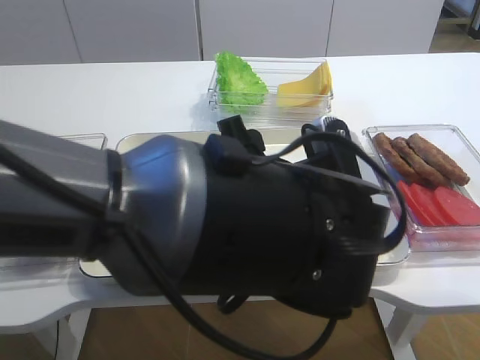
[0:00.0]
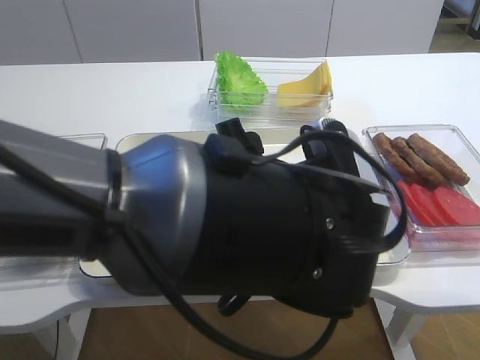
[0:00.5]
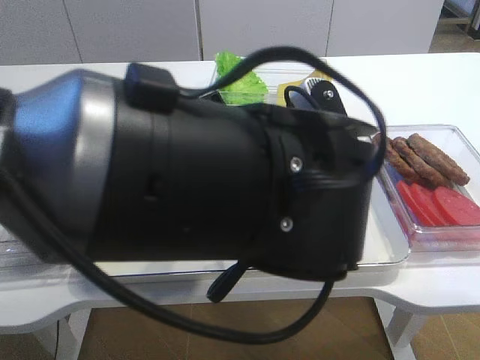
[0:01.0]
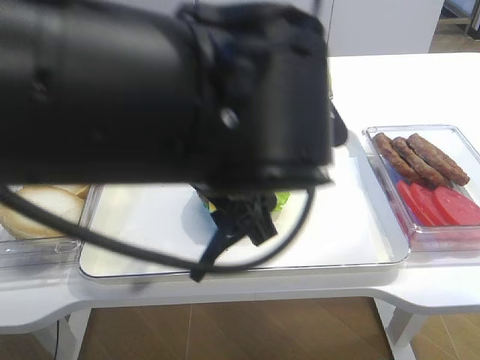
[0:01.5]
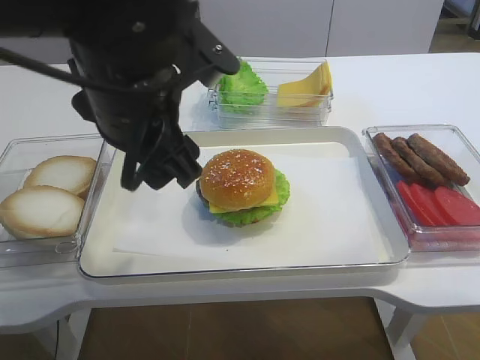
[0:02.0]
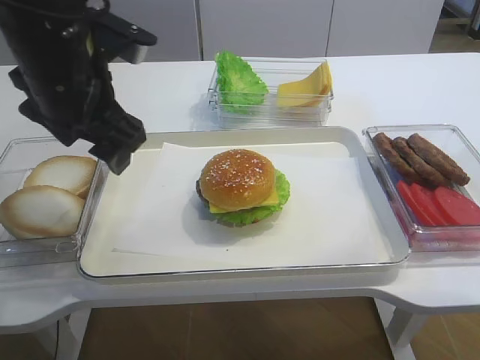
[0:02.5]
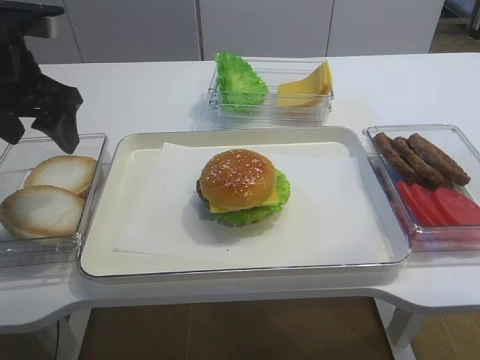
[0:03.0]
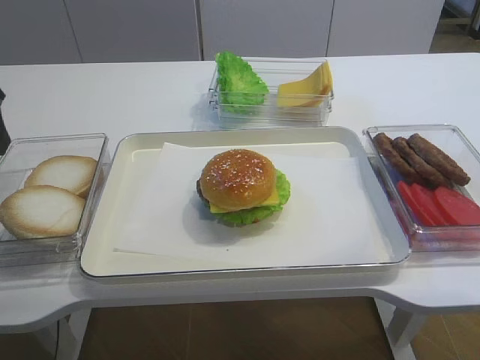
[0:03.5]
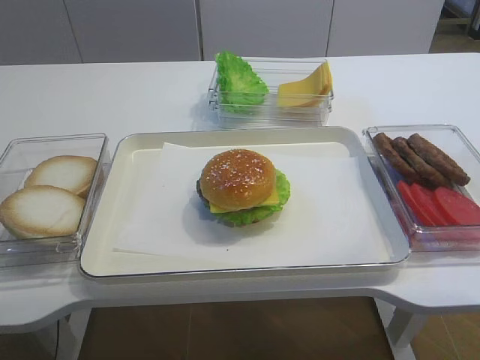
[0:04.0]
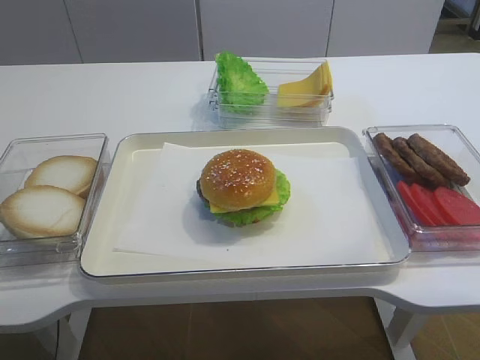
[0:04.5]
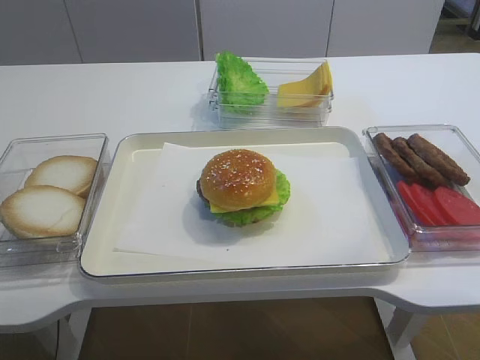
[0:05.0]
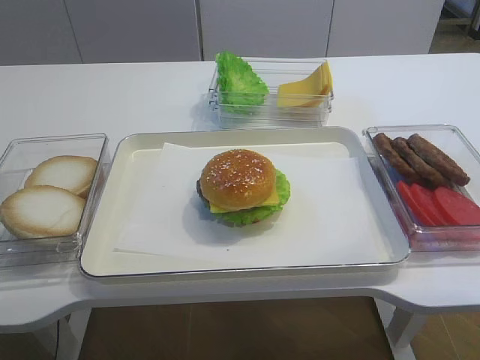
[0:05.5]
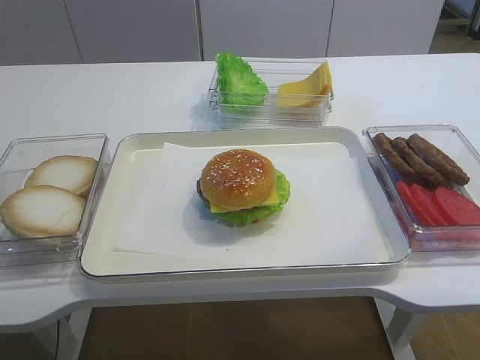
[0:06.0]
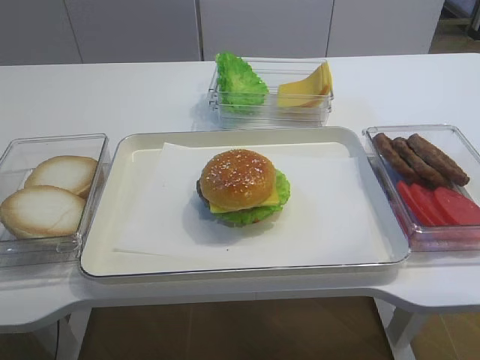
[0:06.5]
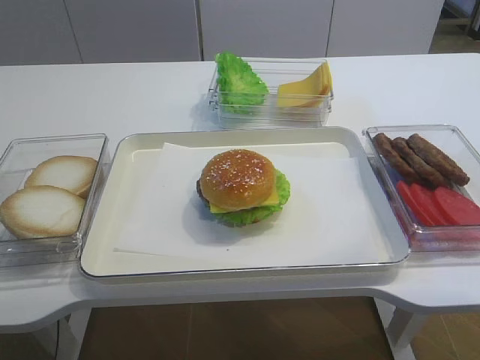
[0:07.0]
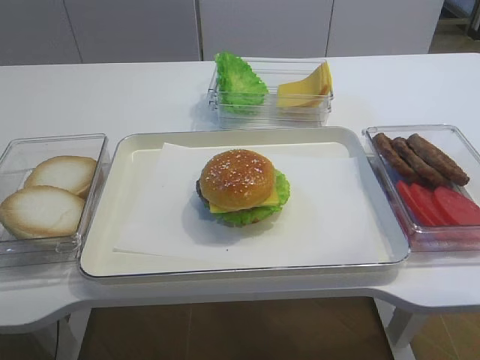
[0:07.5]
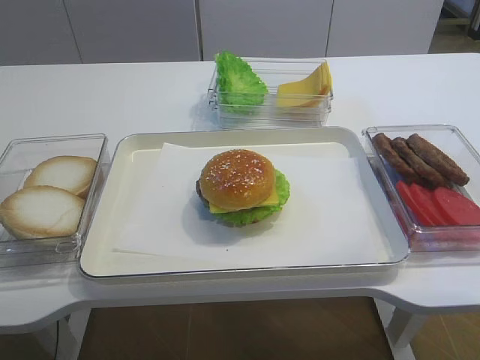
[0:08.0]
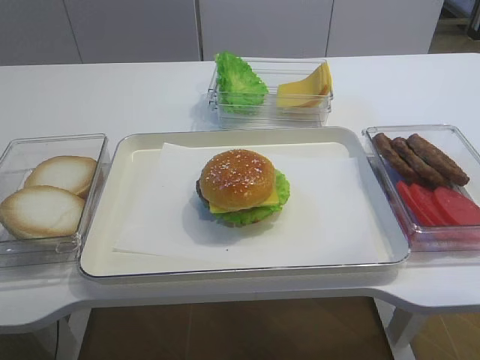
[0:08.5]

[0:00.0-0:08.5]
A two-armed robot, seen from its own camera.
0:00.0 to 0:02.0: The left gripper travels to the left and upward by some 15 cm.
0:02.0 to 0:04.0: The left gripper moves to the left, some 20 cm.
0:06.5 to 0:08.5: Both grippers stay put.

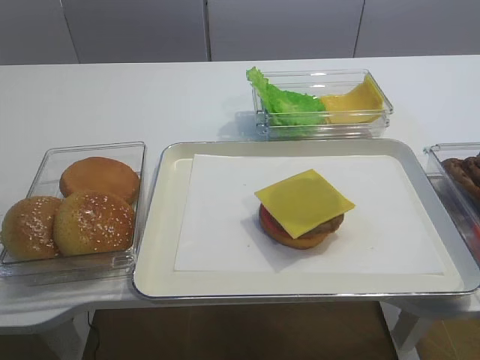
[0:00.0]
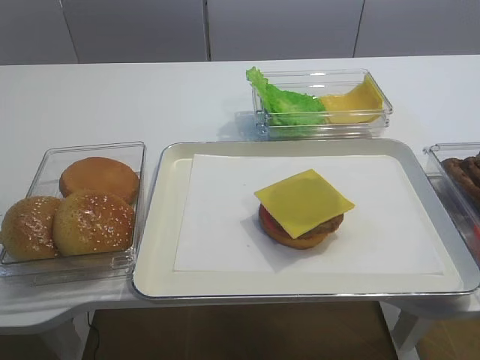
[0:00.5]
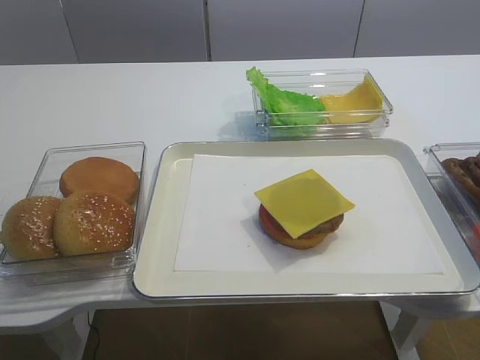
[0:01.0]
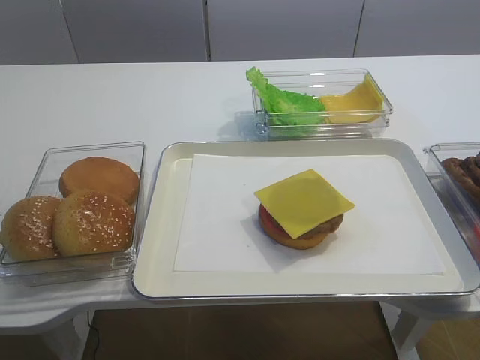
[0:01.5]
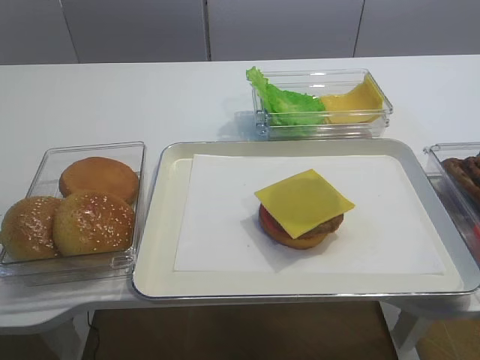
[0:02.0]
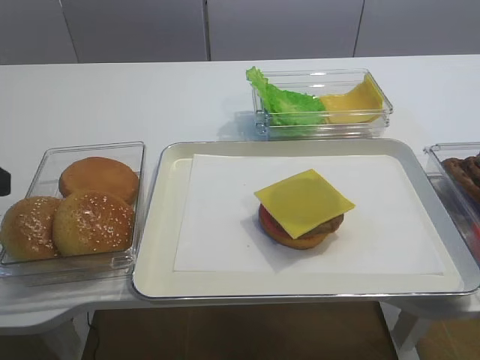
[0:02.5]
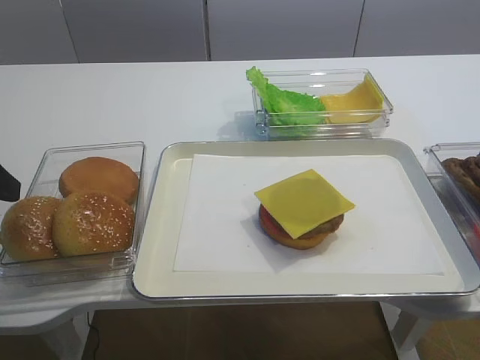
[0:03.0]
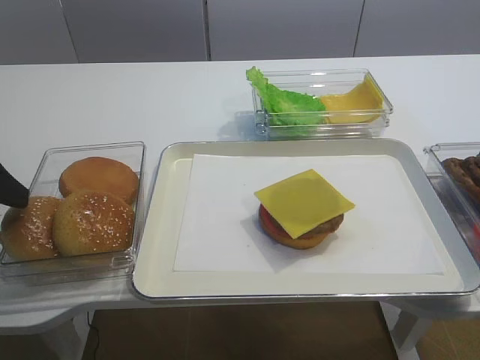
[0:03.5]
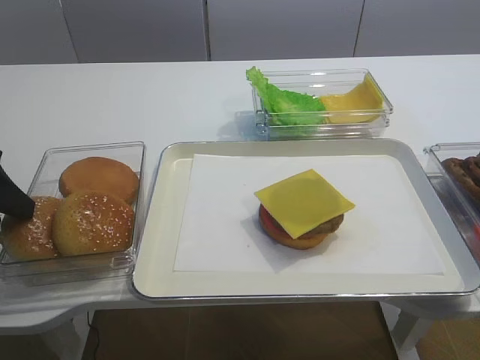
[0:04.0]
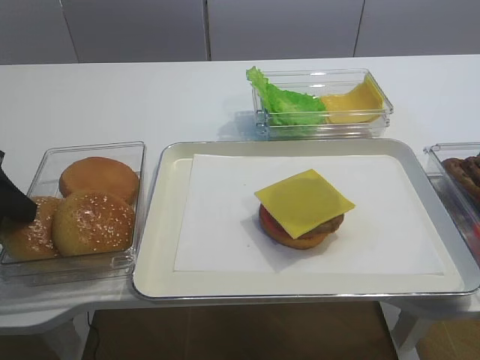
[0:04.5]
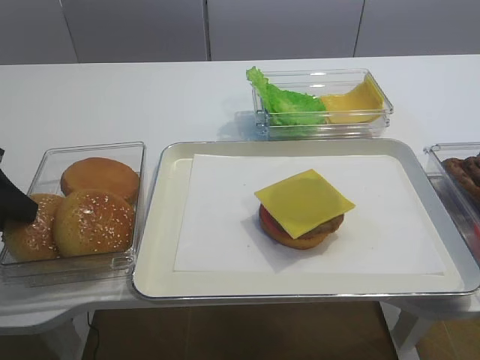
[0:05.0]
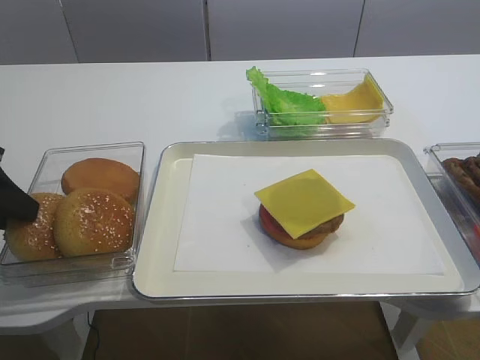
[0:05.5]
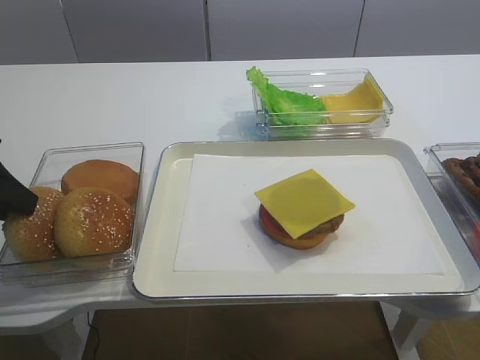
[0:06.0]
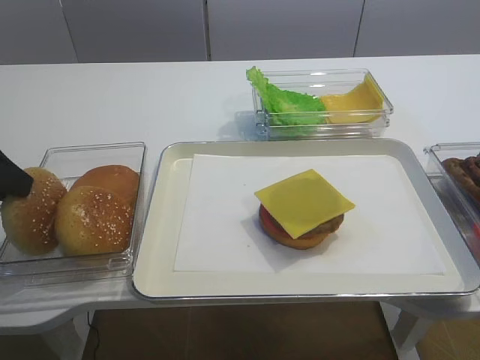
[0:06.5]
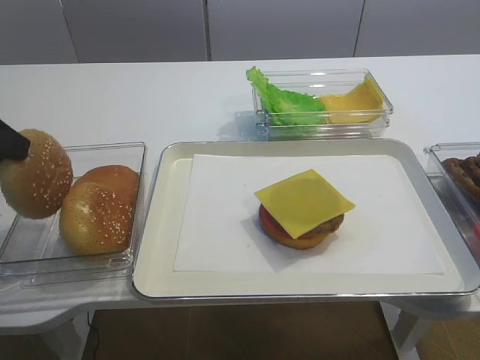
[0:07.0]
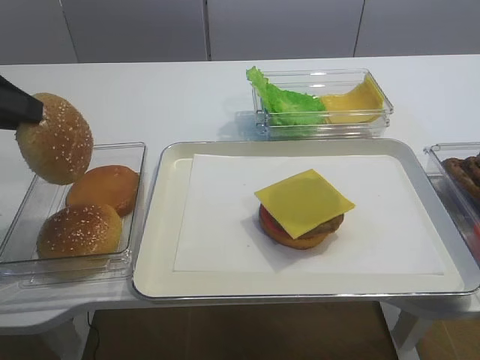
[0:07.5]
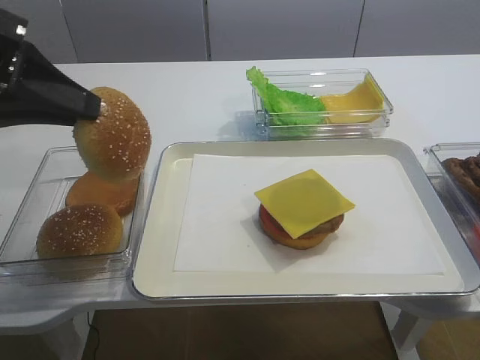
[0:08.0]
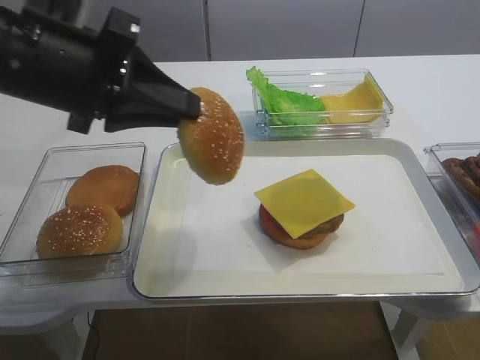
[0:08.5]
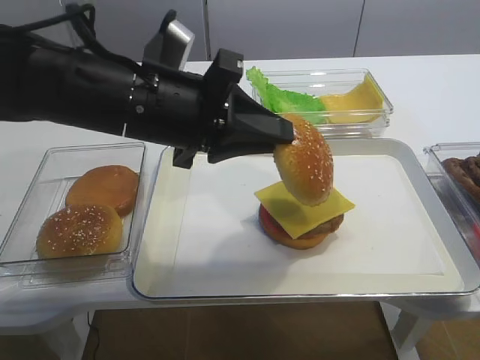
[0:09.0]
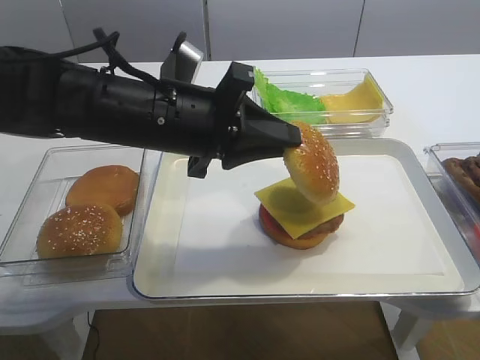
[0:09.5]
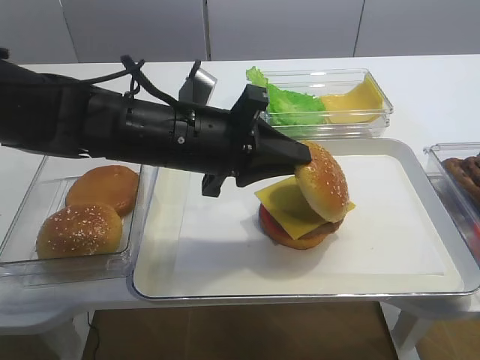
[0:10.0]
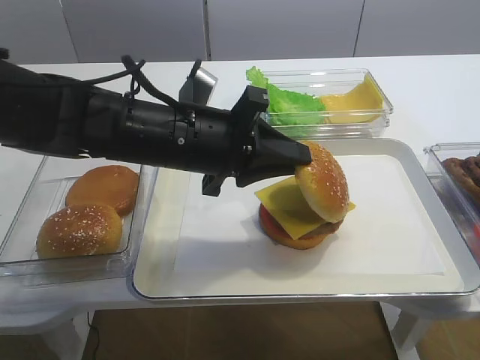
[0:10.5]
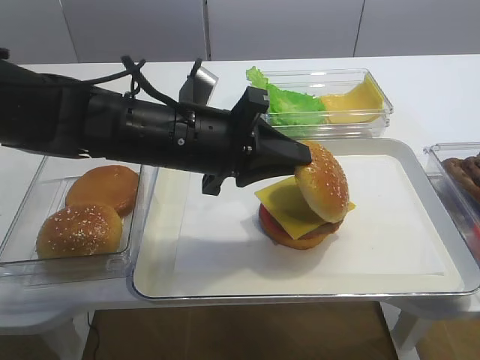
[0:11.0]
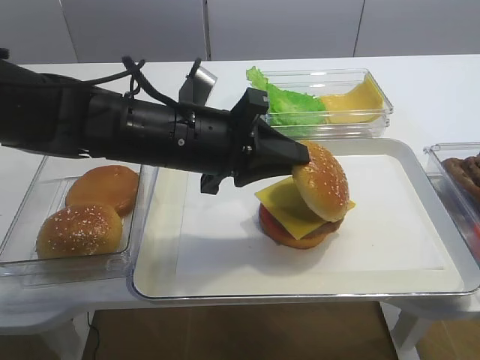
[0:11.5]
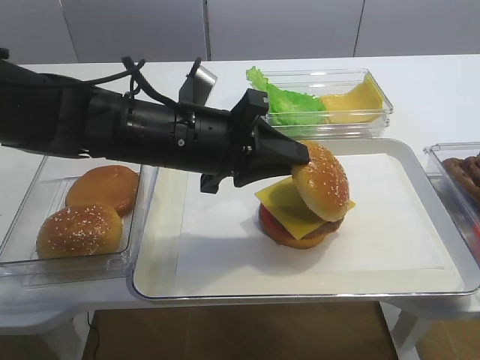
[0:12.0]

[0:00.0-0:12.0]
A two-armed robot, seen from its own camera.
Step, 0:00.0 to 0:07.0: Pick up the hamburger lid with the left gripper.
0:02.0 to 0:04.0: The left gripper heads forward, covering about 20 cm.
0:04.0 to 0:06.0: The left gripper closes up.
0:06.0 to 0:08.0: The left gripper moves upward and to the right, approximately 10 cm.
0:08.0 to 0:10.0: The left gripper heads to the right and downward, covering approximately 20 cm.
0:10.0 to 0:12.0: Neither gripper changes place.

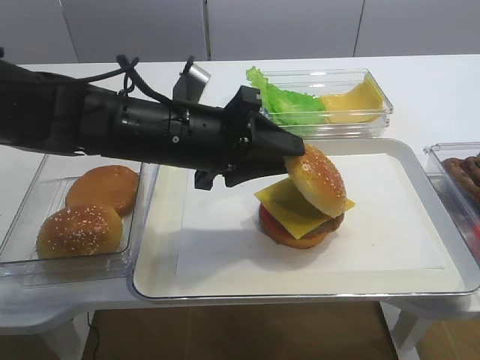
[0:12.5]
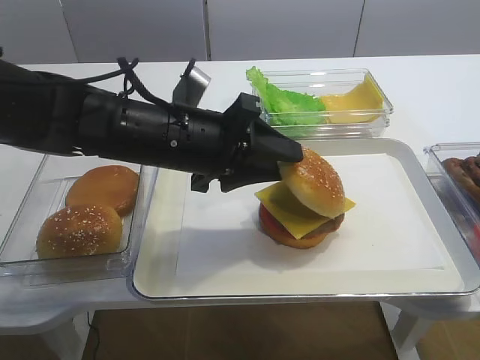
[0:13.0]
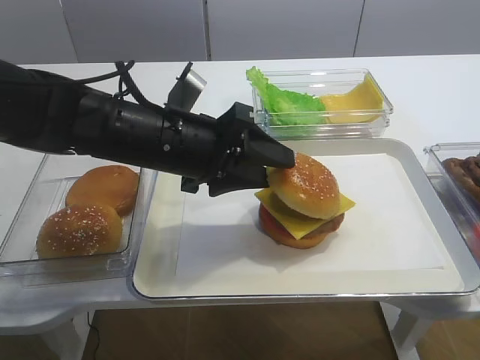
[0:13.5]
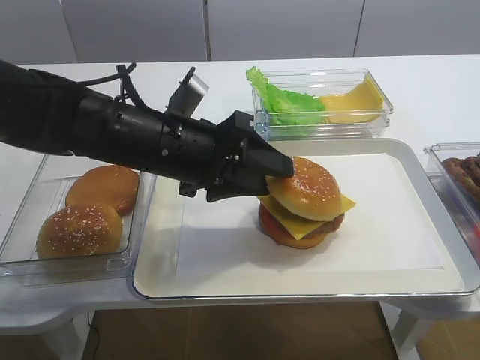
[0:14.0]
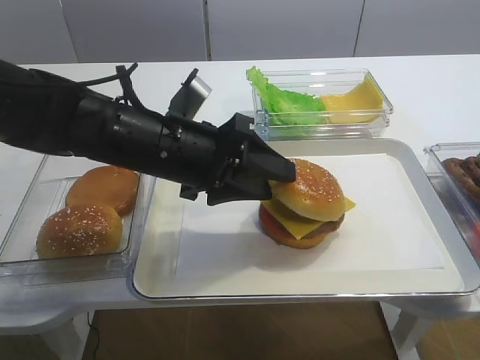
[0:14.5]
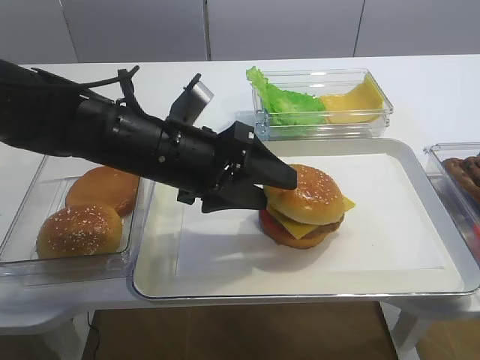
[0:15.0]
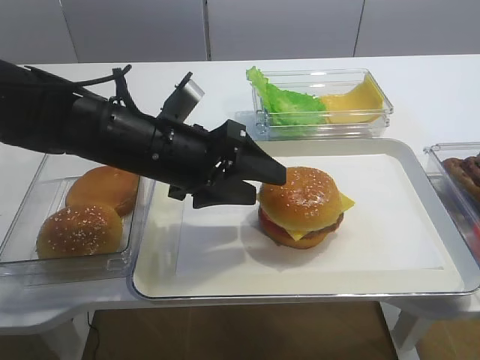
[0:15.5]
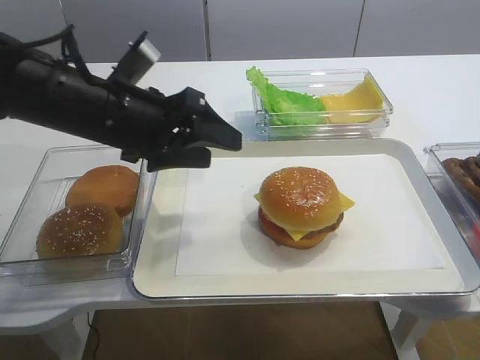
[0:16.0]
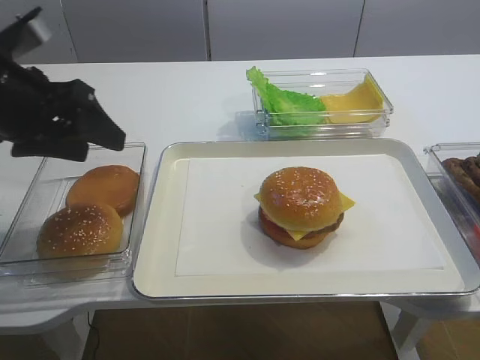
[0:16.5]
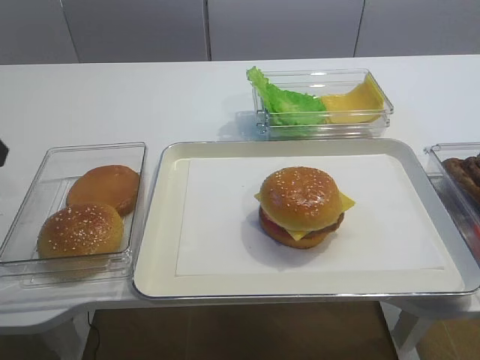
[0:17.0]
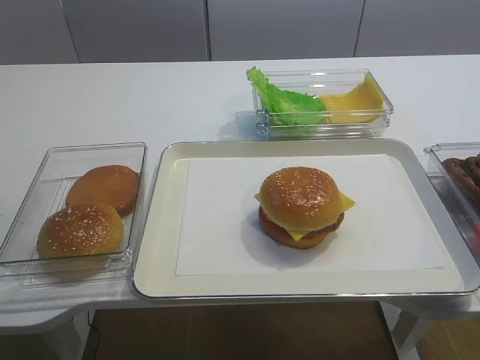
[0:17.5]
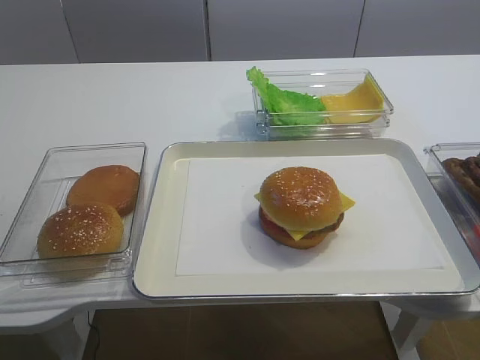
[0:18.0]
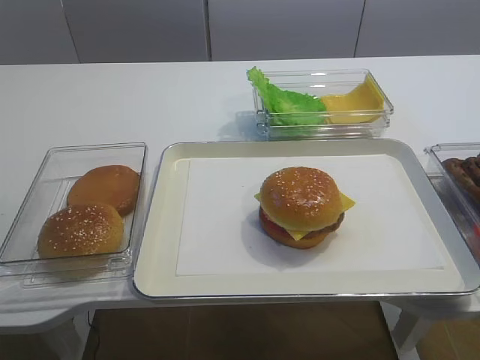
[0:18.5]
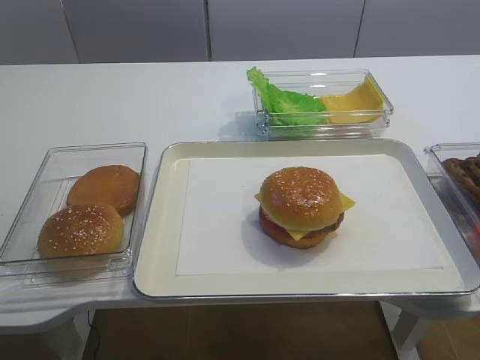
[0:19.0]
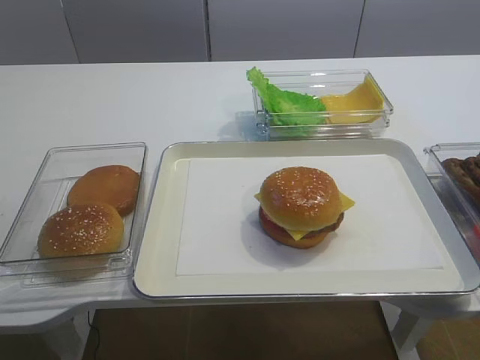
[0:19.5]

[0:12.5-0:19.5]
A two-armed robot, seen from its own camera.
Step, 0:12.5 to 0:15.0: Place the hamburger lid on the cheese slice with the left gripper.
0:12.5 to 0:14.5: The grippers stay close to where they were, moving slightly.
0:14.5 to 0:16.0: The left gripper heads to the left, covering some 5 cm.
0:16.0 to 0:17.5: The left gripper is displaced to the left, backward and upward by about 20 cm.
